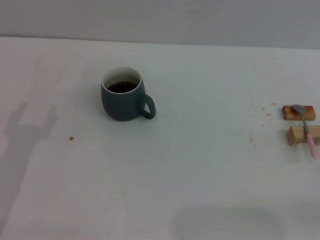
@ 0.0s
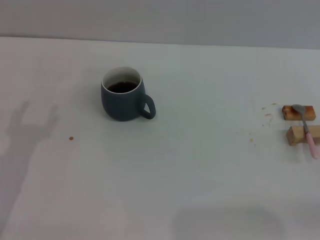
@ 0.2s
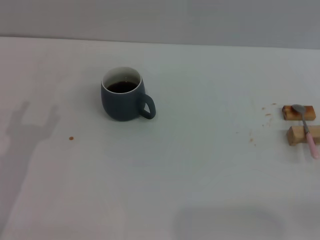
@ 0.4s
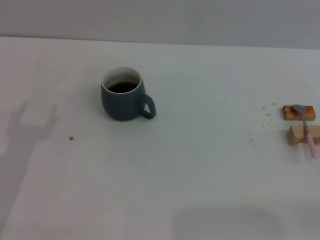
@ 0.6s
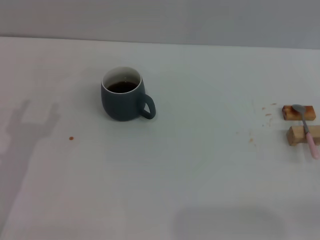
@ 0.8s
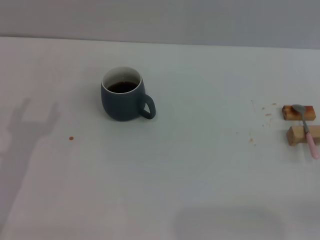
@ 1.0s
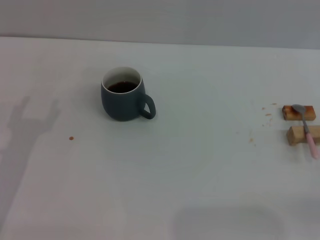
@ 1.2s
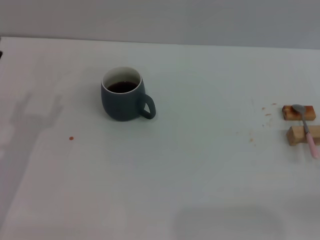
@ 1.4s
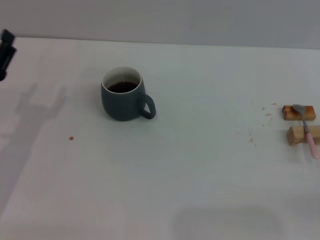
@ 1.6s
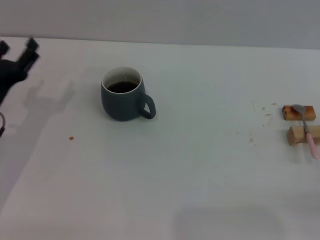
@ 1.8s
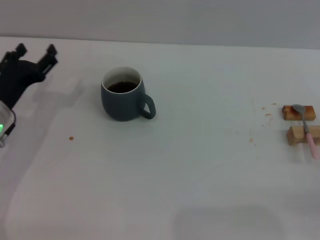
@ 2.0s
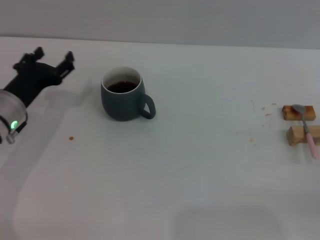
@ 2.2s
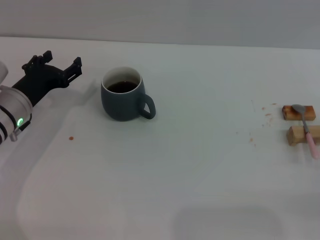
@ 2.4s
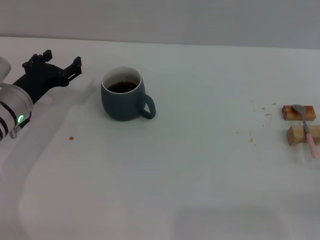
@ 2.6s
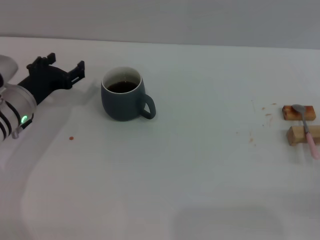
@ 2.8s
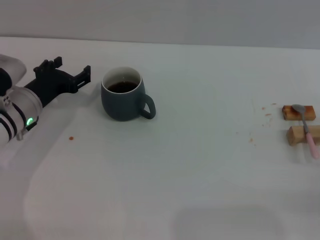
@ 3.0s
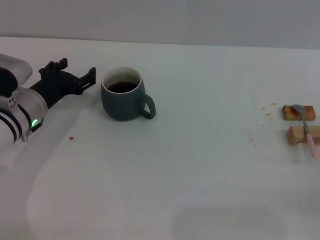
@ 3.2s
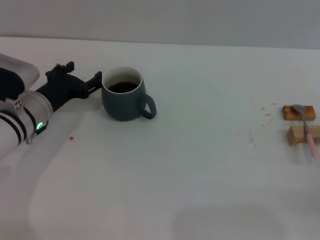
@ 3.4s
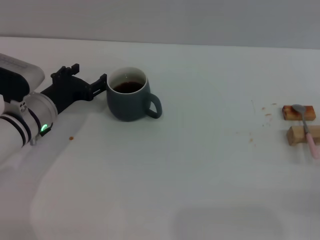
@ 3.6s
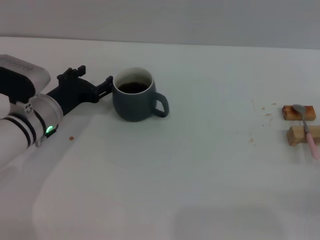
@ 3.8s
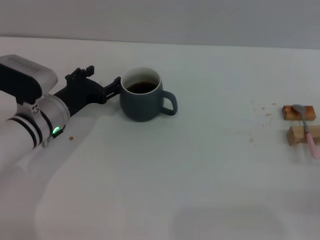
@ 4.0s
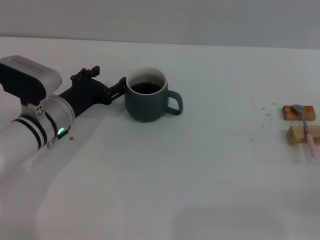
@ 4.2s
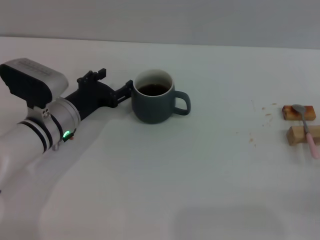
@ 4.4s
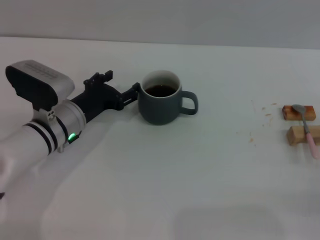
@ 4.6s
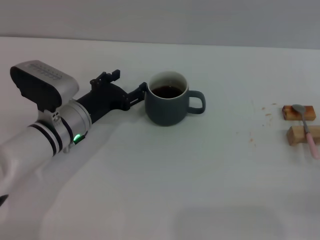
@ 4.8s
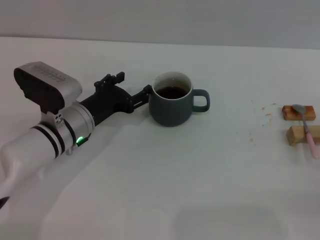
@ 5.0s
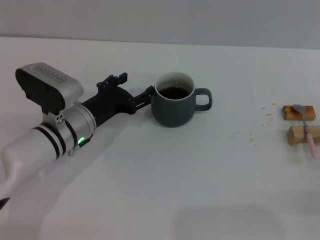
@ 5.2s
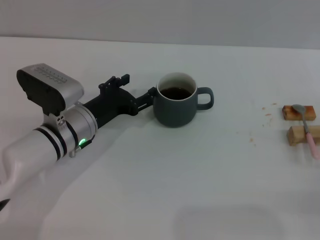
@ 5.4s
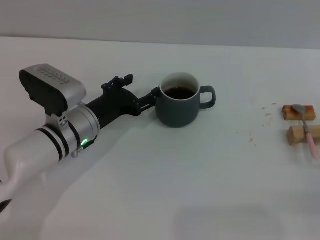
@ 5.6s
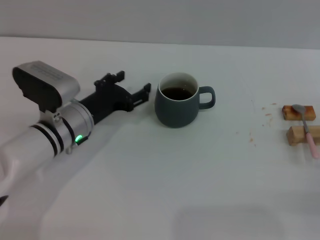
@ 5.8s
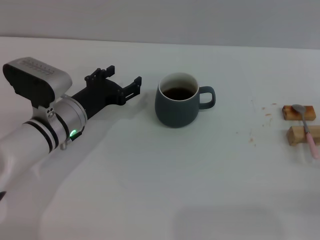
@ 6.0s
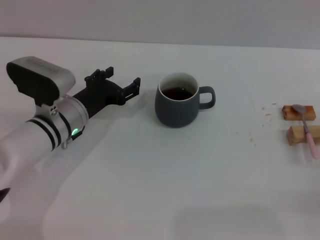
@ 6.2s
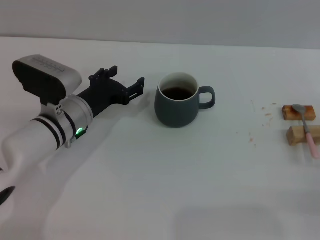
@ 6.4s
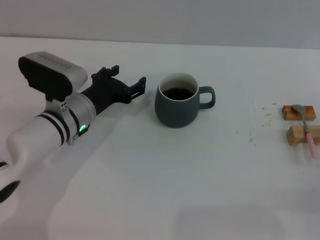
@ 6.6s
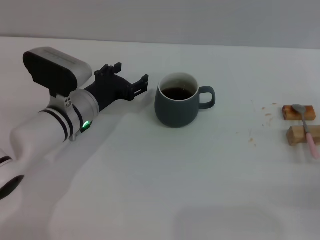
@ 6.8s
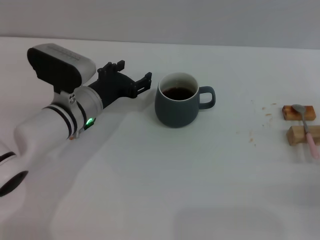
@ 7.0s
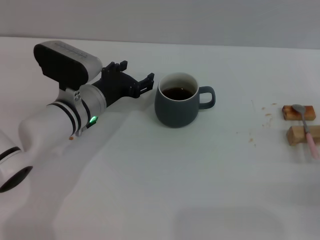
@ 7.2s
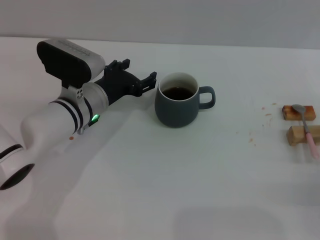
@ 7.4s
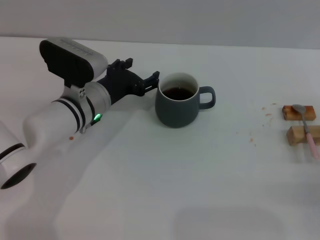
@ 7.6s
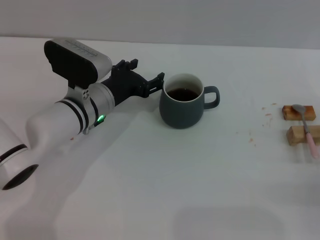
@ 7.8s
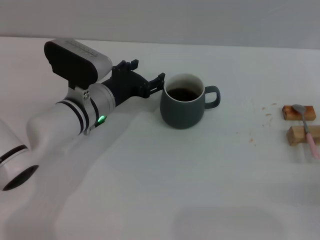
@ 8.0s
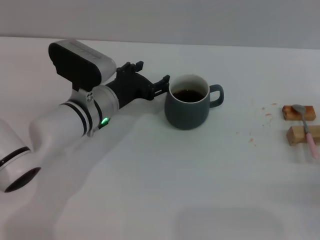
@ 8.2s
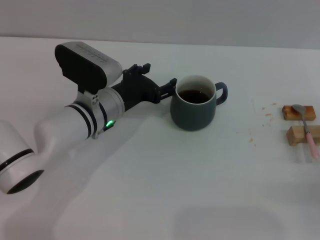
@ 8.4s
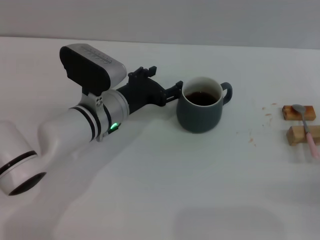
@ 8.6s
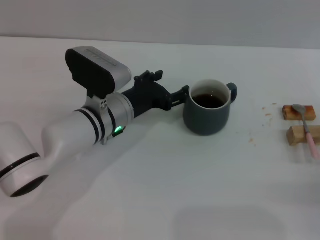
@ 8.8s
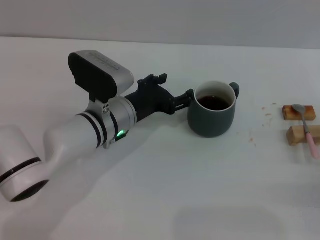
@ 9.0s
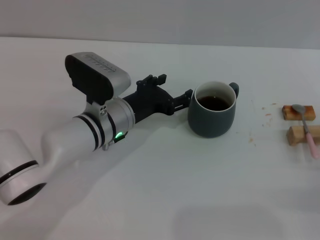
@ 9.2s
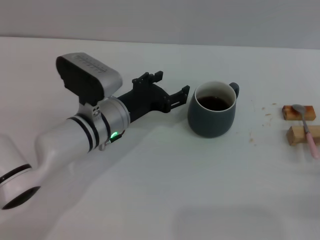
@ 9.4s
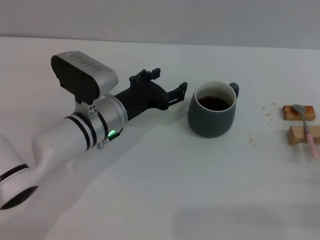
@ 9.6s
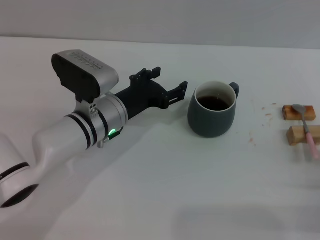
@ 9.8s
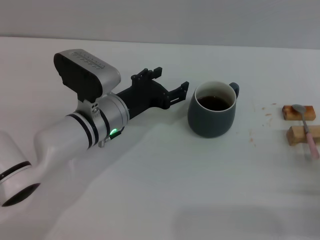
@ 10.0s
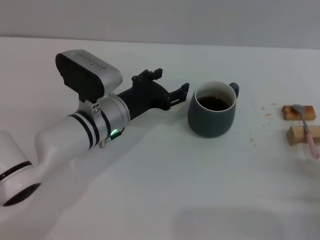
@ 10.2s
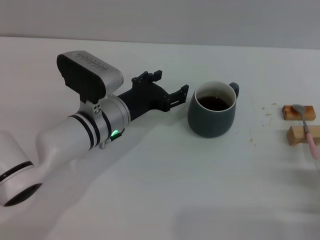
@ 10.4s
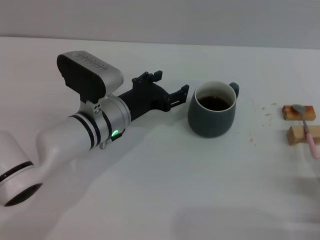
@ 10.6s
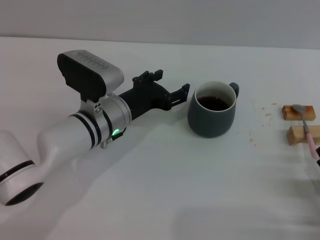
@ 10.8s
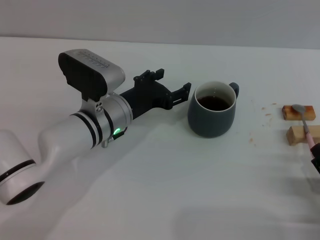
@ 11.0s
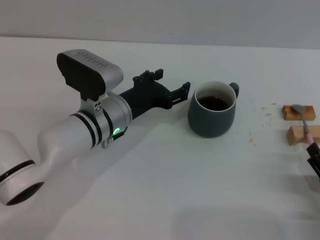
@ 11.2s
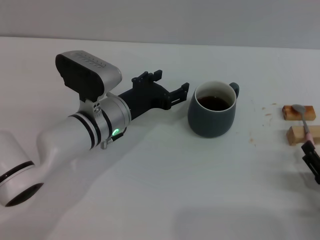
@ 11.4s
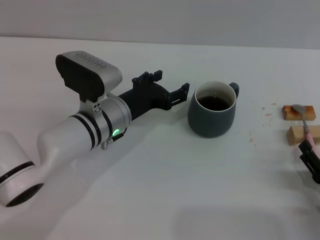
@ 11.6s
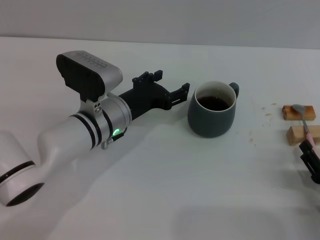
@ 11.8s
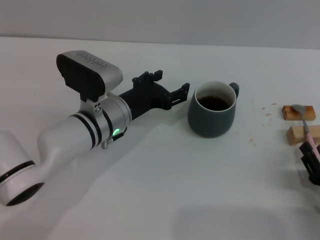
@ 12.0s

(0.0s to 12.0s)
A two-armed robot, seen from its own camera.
Task of the whole recording: Move the grey cup to the center, lift the pink spoon, stir it three times in the cup, and put the spoon into the cup.
Step, 0.0s - 9.4s: Move the cup with coffee to the center of view with the left gripper.
1.6s - 3.0s: The left gripper is displaced forward by some 10 cm.
3.0s - 4.4s: The left gripper travels to the right by some 5 cm.
4.4s - 6.0s: The grippers make only small movements.
6.0s - 7.6s: The left gripper moves roughly 5 cm.
7.6s - 9.0s: The grippers move only a little.
9.0s - 10.4s: The right gripper goes roughly 5 cm backward.
10.4s - 12.0s: The grippers move only a little.

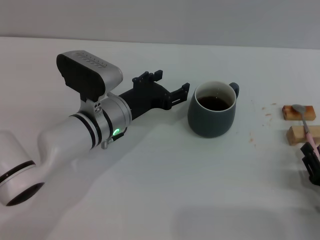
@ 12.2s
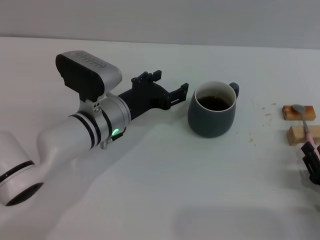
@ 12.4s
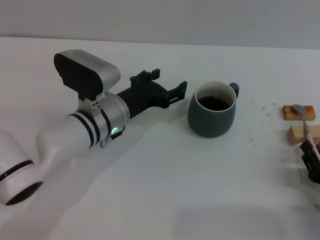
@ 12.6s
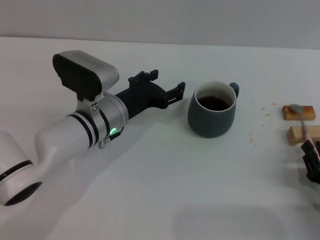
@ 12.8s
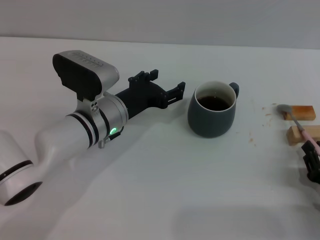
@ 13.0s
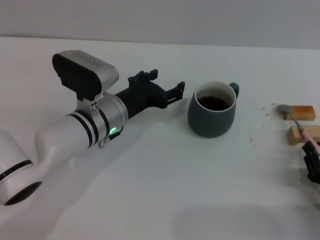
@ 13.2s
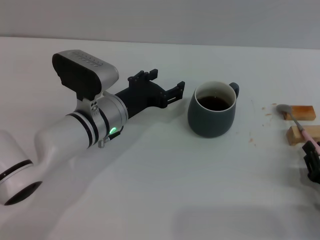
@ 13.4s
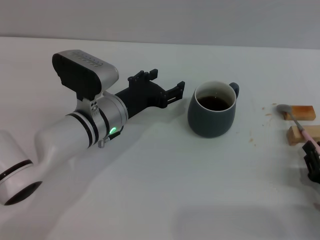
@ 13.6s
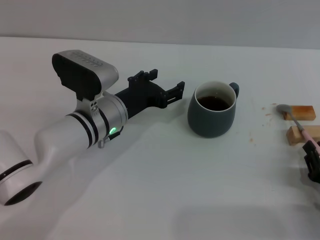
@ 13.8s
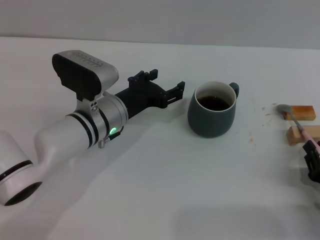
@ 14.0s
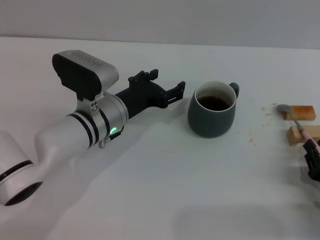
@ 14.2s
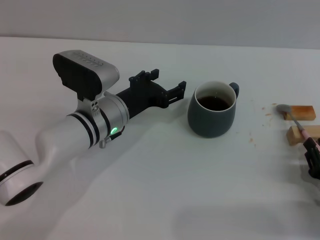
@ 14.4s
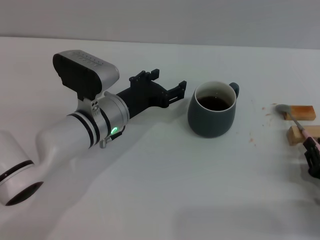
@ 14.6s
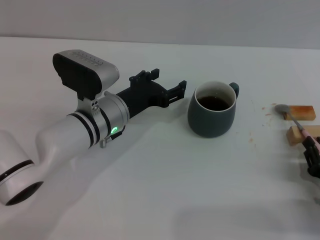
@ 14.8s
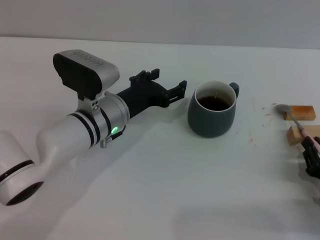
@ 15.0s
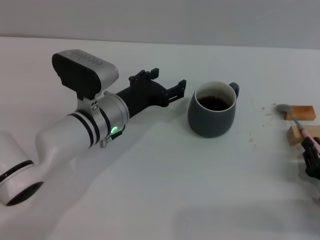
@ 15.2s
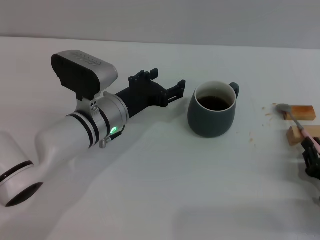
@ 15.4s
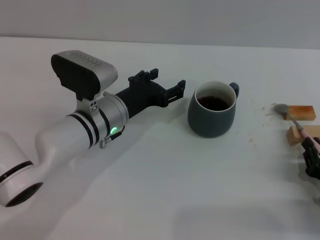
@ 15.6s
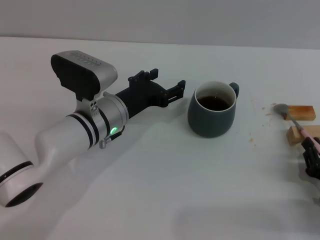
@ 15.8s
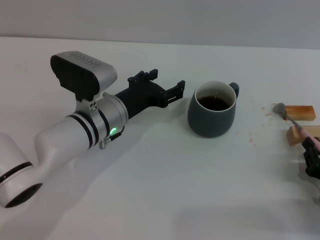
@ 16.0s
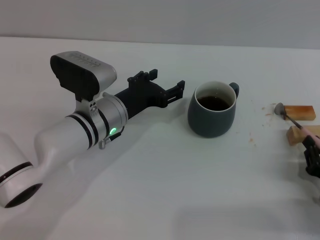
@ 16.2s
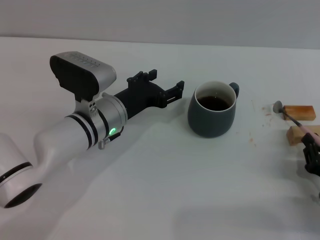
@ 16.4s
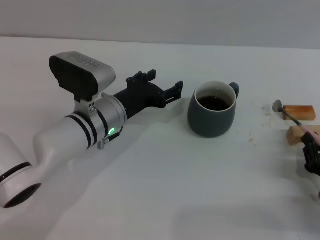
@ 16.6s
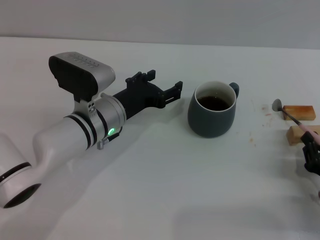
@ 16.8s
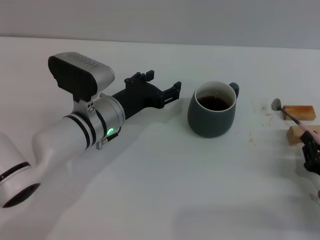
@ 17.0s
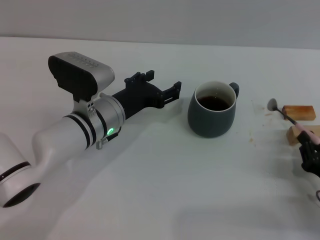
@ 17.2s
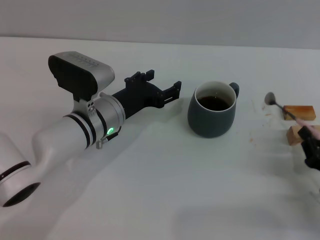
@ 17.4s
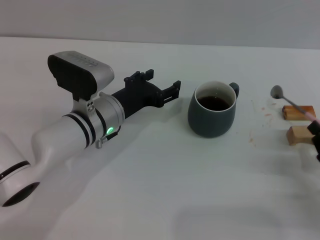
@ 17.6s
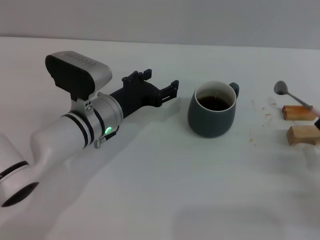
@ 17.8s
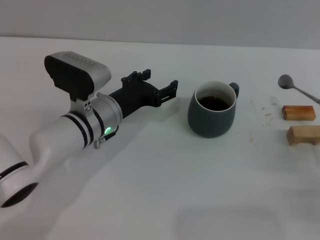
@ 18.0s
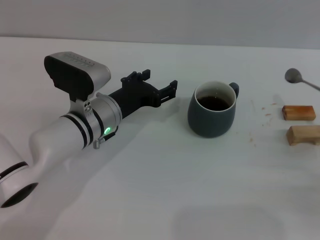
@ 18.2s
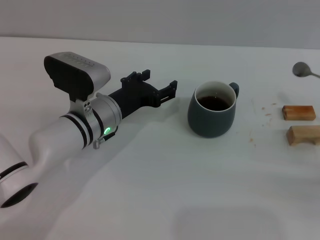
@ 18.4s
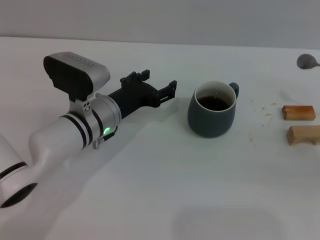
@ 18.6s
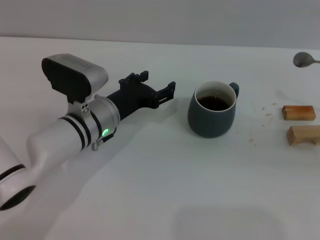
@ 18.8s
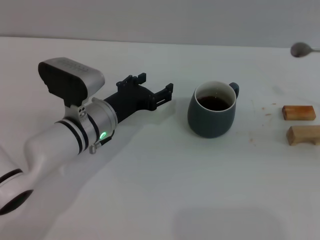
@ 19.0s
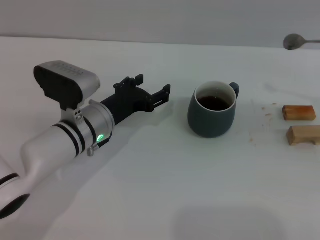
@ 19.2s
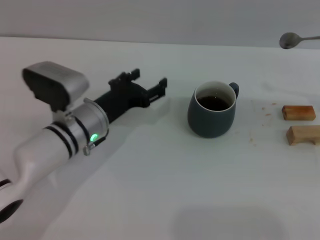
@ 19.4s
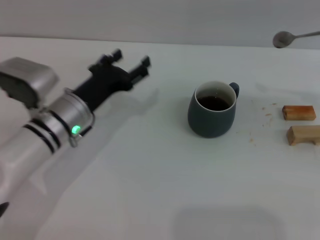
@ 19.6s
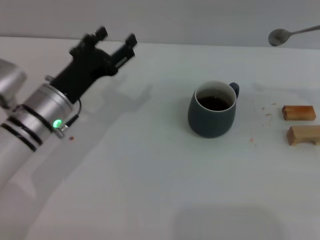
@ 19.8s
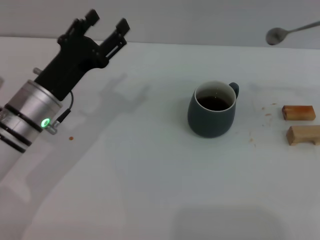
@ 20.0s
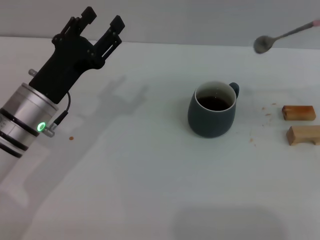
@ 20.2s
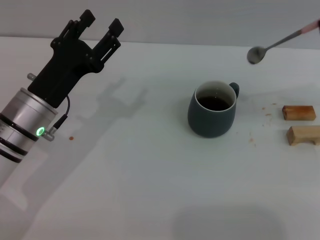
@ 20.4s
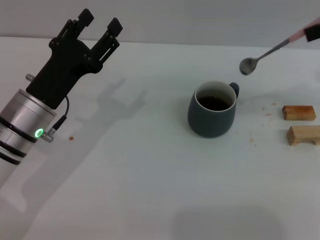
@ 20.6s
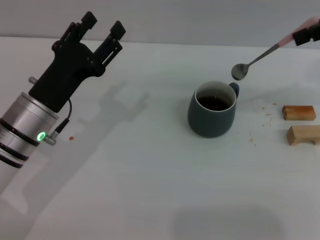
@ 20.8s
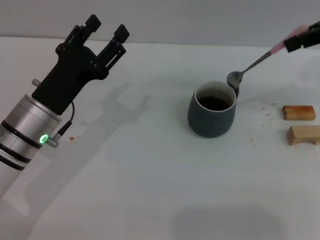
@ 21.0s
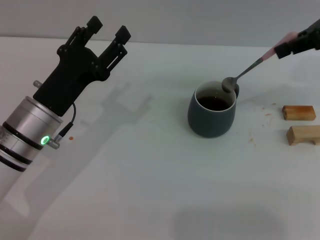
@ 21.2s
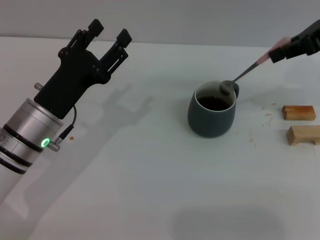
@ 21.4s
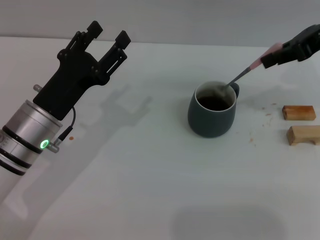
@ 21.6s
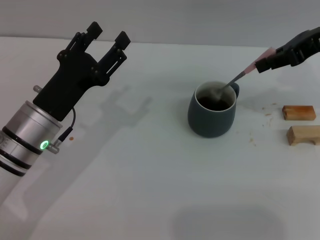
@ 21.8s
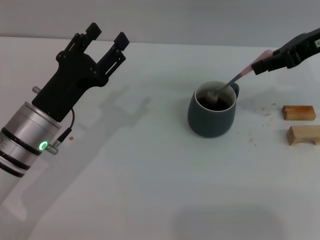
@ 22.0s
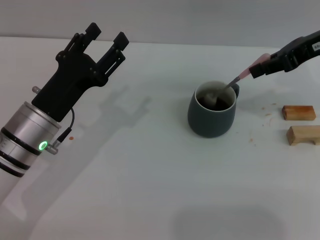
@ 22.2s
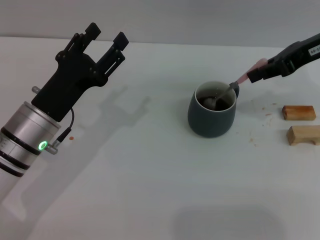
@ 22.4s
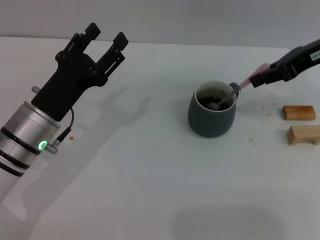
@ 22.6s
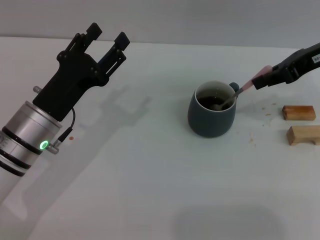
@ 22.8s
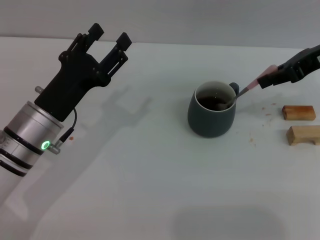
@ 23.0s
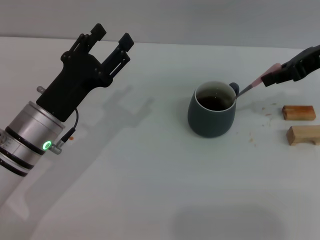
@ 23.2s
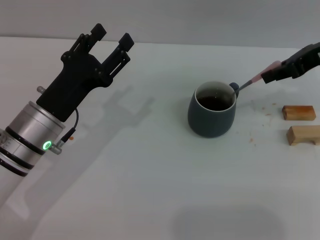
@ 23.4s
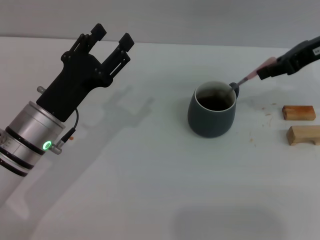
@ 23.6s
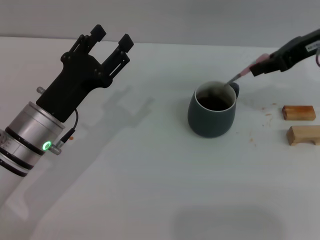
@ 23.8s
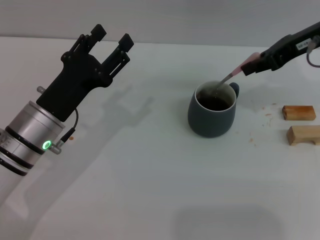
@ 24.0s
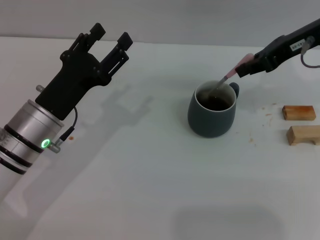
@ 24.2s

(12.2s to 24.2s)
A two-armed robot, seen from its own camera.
Task of the whole recording: Move the grey cup to the center, lift the pink spoon, stir it three times in the cup, and put the spoon into the cup.
Step, 12.2s - 18.8s: Pick up the spoon with the right gripper.
12.2s - 13.8s: Neither gripper changes place.
13.8s - 15.2s: The two grippers keep their place.
15.2s - 16.6s: Both grippers stay about where they are.
16.6s - 18.2s: The right gripper goes roughly 10 cm to the right and upward.
18.2s - 19.8s: The right gripper shifts some 25 cm upward and forward. The left gripper heads to the left, covering about 5 cm.
19.8s - 21.2s: The right gripper heads to the left and forward, covering about 10 cm.
21.2s - 22.6s: The right gripper heads downward, covering some 5 cm.
22.6s - 24.2s: The grippers move only a little.
